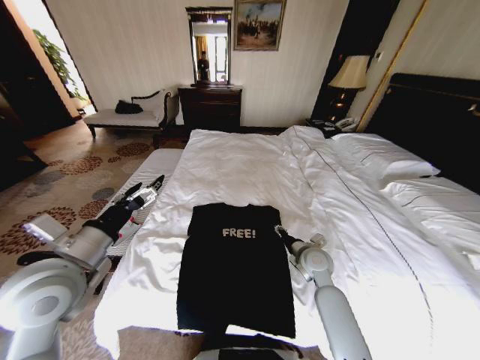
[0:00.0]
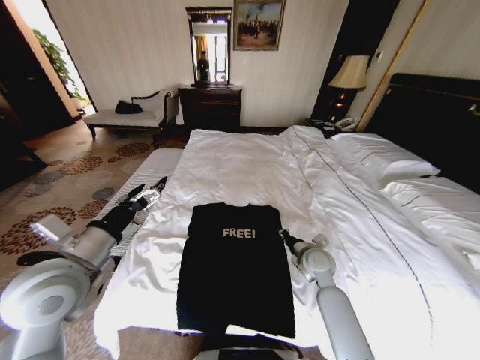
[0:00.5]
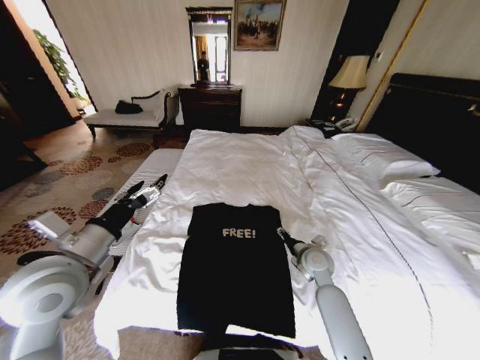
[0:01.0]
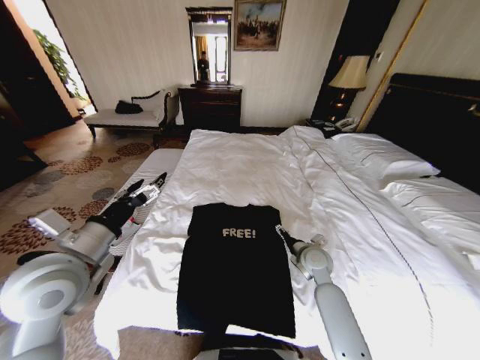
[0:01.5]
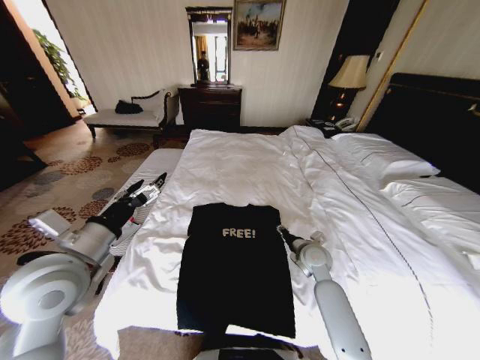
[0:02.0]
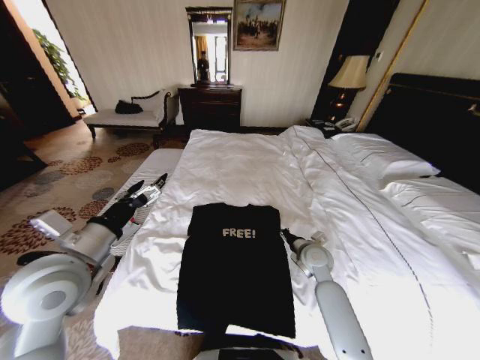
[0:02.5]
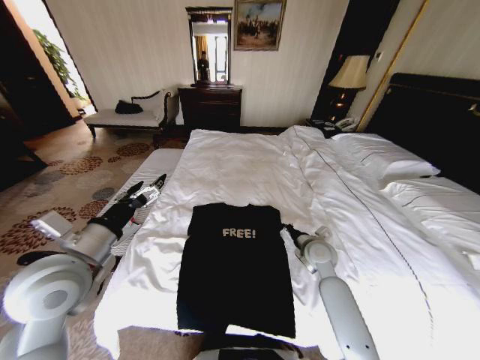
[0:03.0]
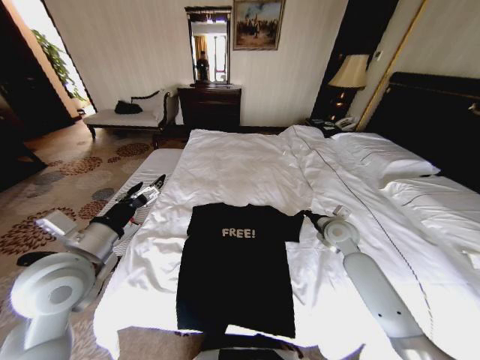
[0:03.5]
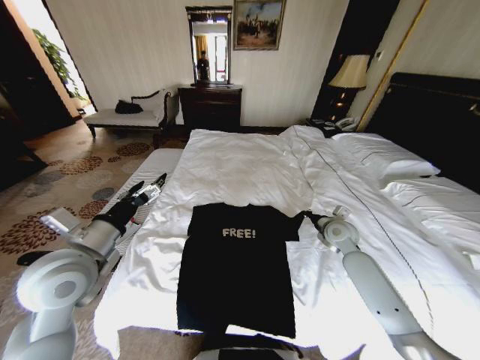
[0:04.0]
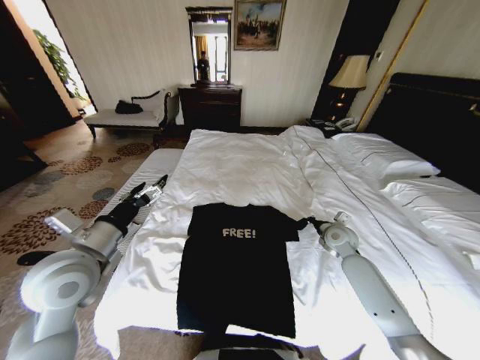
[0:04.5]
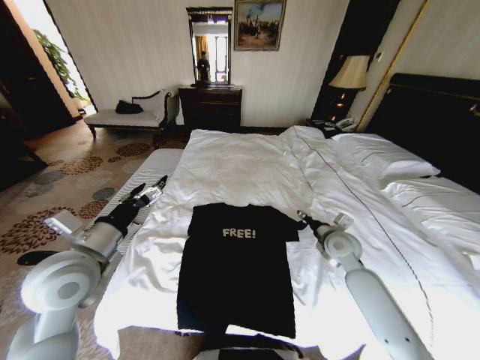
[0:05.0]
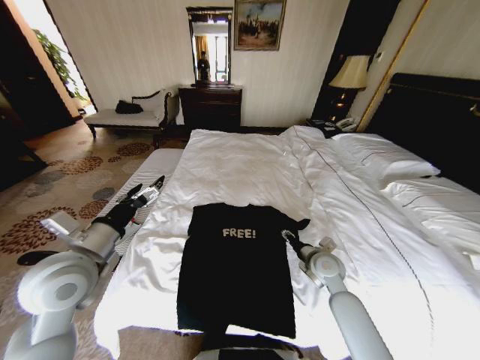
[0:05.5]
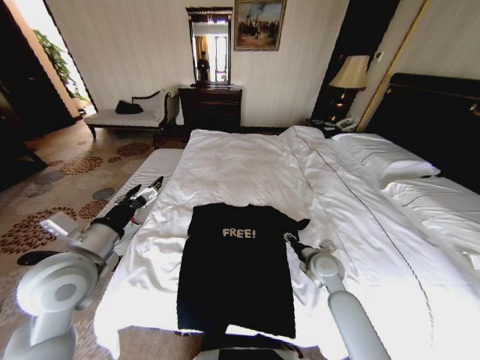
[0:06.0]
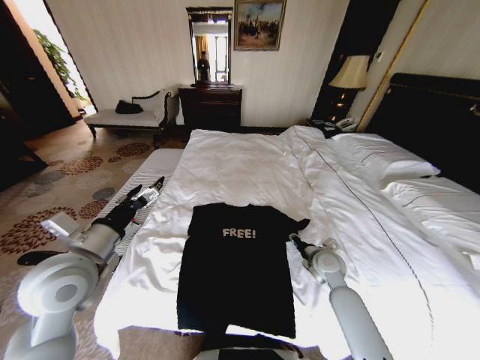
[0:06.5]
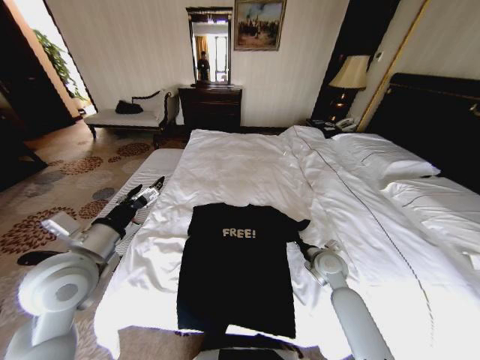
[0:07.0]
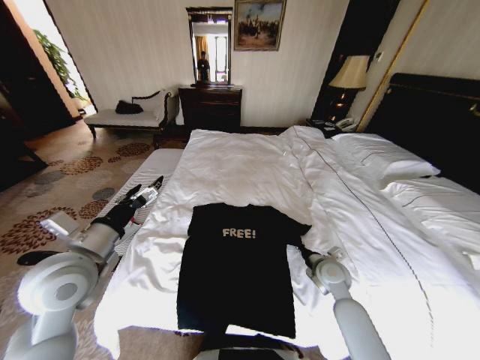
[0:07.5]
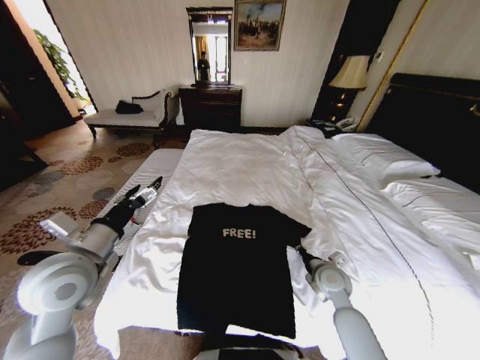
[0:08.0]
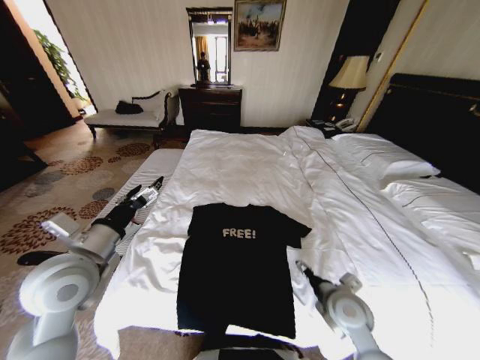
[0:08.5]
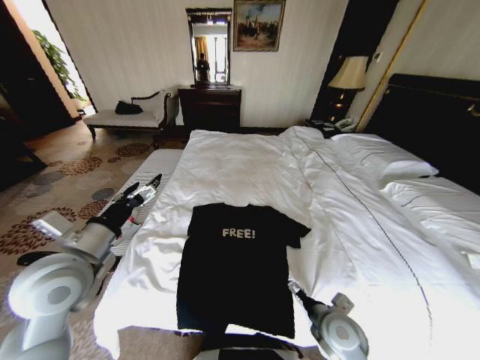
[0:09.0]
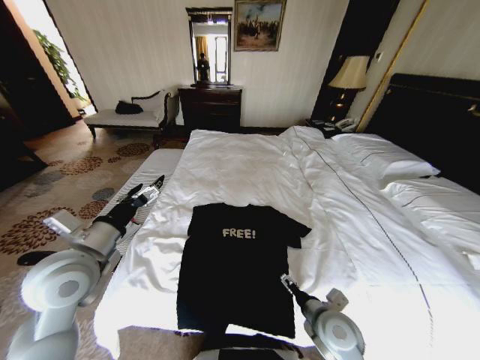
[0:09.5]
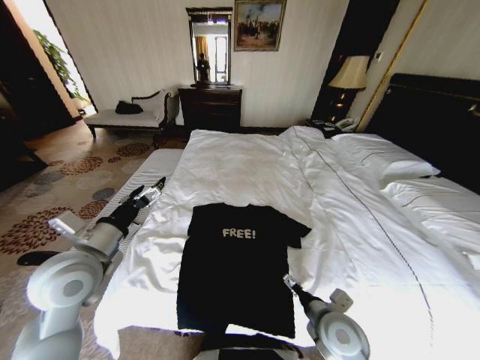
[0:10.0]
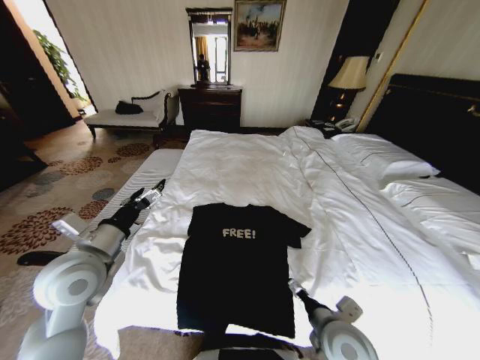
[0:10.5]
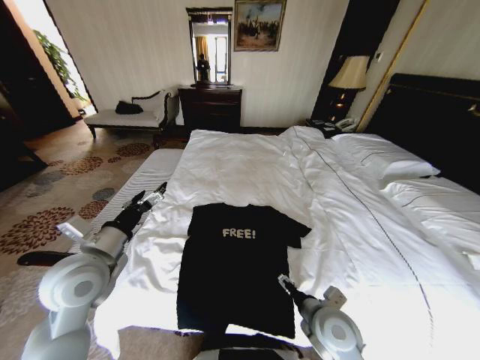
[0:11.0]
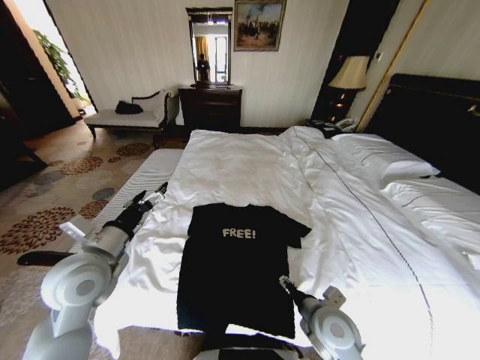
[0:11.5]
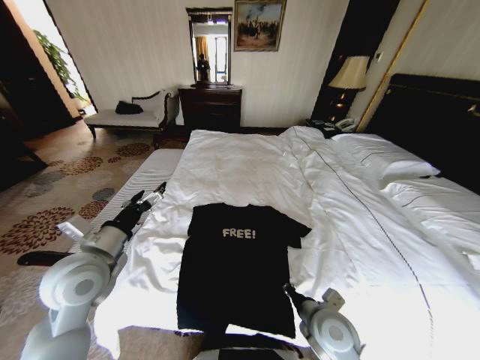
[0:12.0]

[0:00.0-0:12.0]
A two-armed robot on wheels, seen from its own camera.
Task of the whole recording: Fold the clothes on the bed.
0:00.0 to 0:02.0: The right gripper closes, then reopens.
0:02.0 to 0:04.0: The right gripper shifts about 10 cm to the right and forward, and closes its fingers.
0:04.0 to 0:06.0: The right gripper is displaced backward, to the left and downward by about 15 cm, and opens up.
0:06.0 to 0:08.0: The right gripper closes.
0:08.0 to 0:10.0: The right gripper goes approximately 15 cm backward and to the left, and opens up.
0:10.0 to 0:12.0: The right gripper closes up.

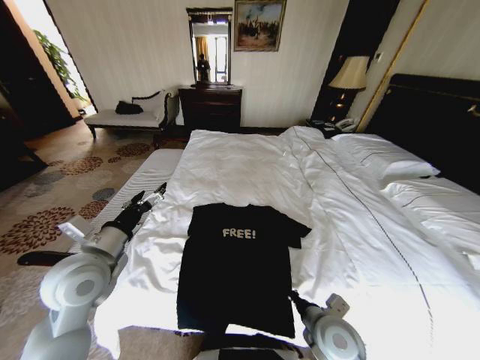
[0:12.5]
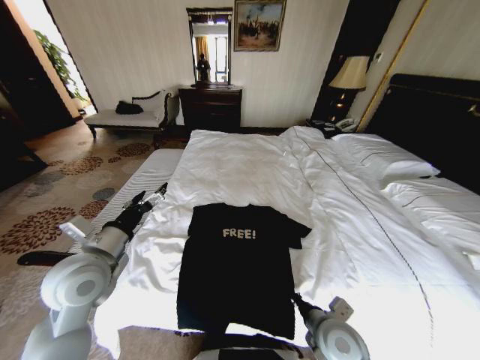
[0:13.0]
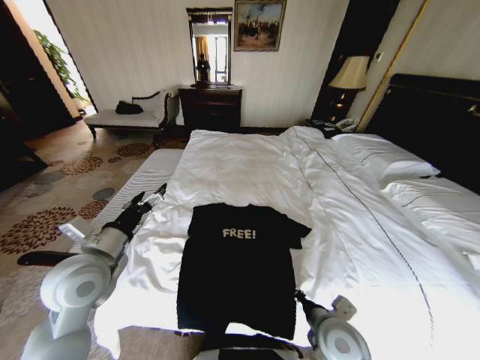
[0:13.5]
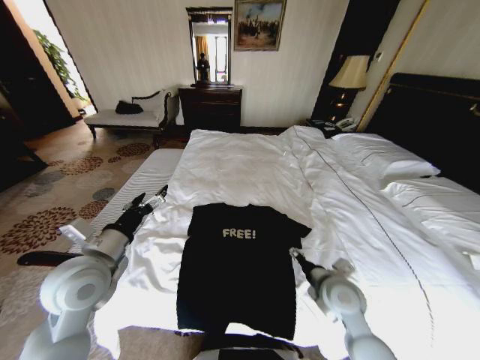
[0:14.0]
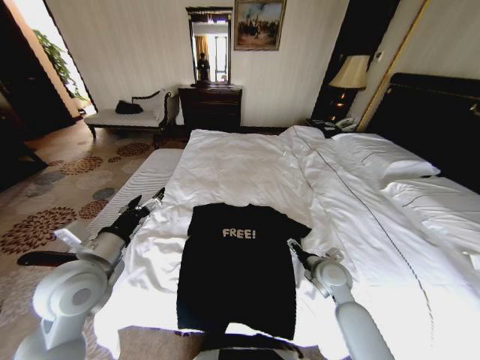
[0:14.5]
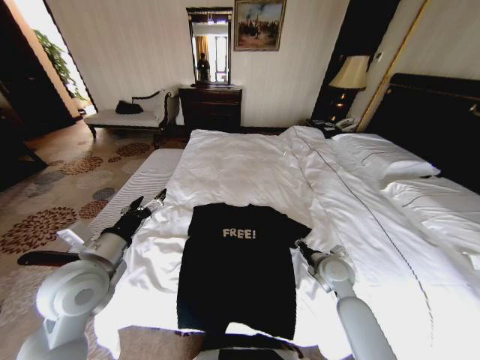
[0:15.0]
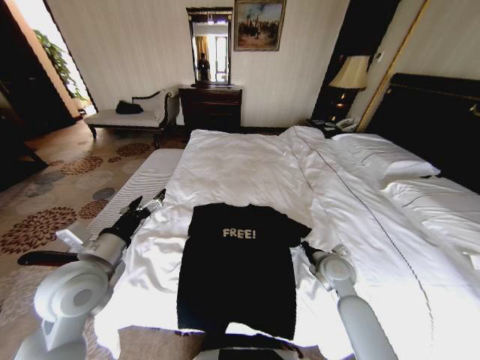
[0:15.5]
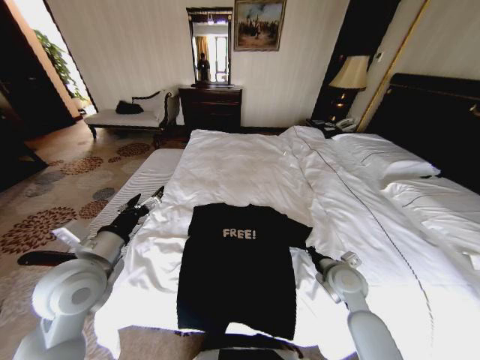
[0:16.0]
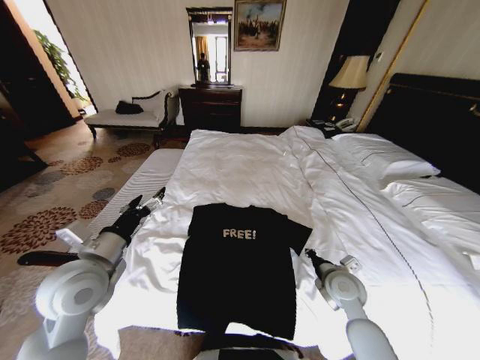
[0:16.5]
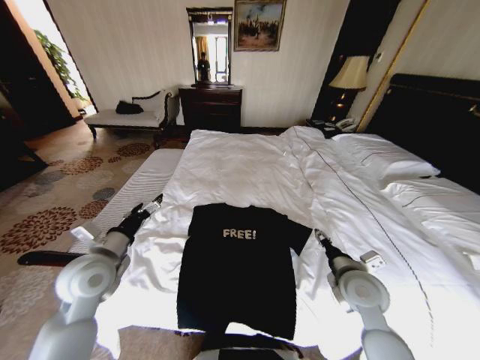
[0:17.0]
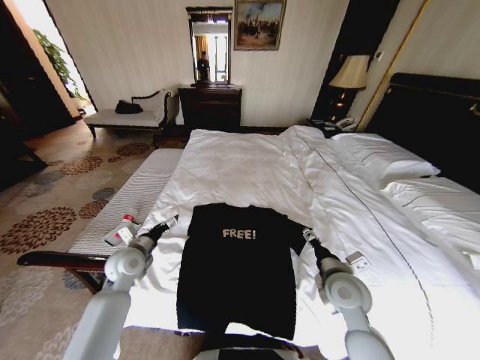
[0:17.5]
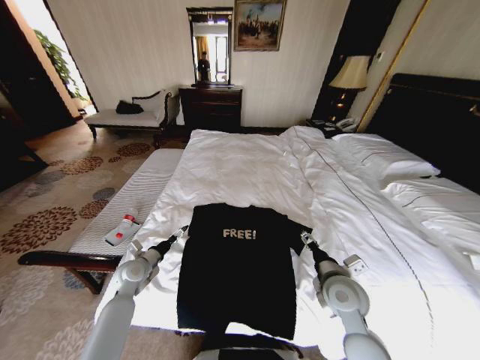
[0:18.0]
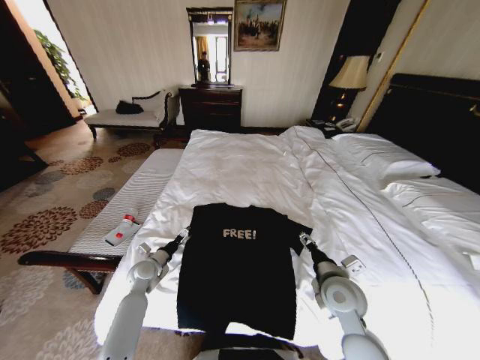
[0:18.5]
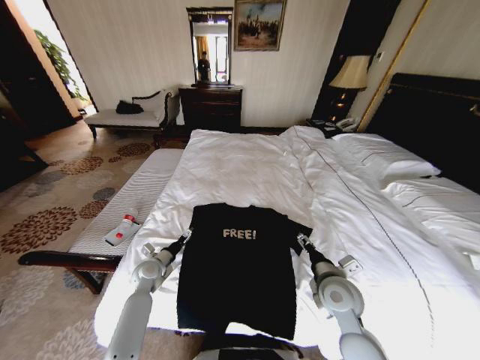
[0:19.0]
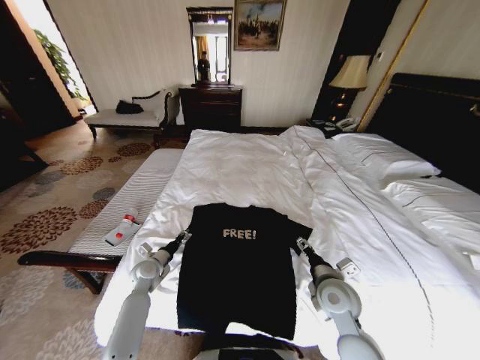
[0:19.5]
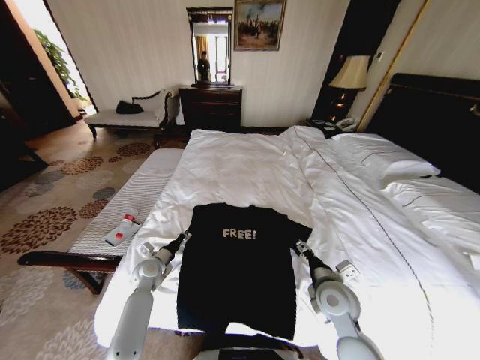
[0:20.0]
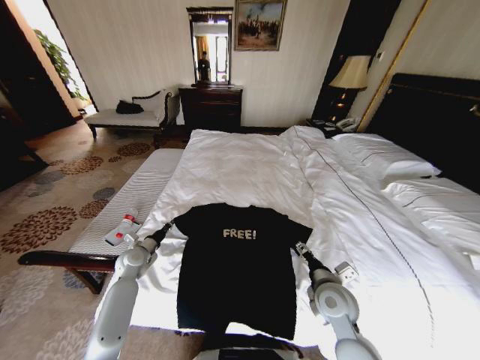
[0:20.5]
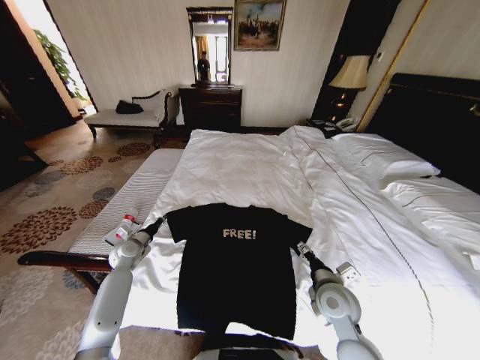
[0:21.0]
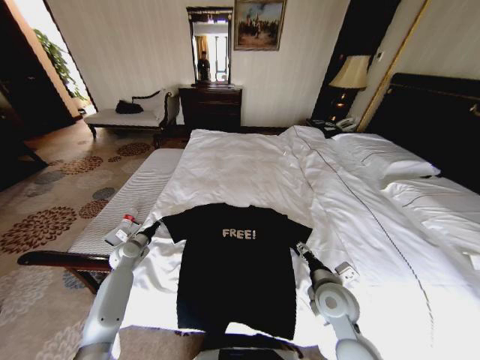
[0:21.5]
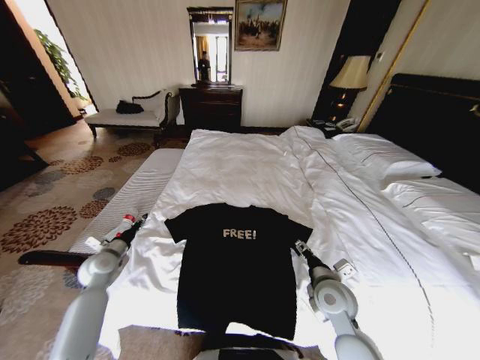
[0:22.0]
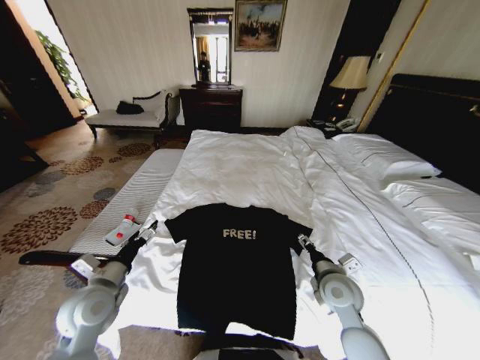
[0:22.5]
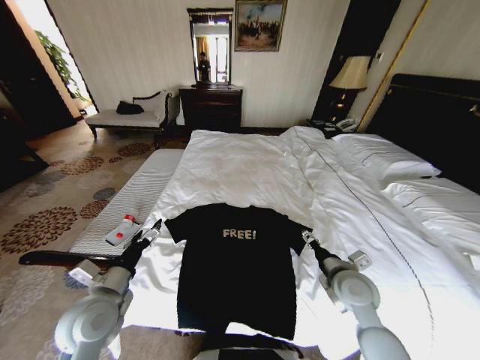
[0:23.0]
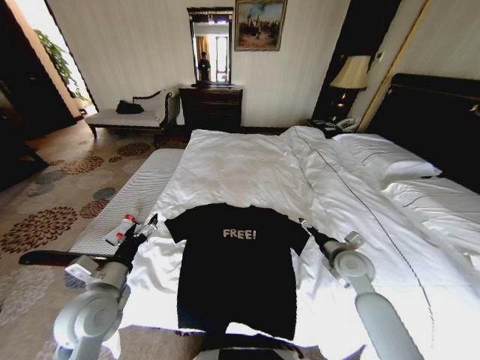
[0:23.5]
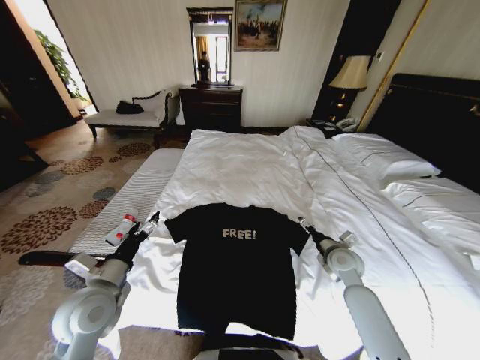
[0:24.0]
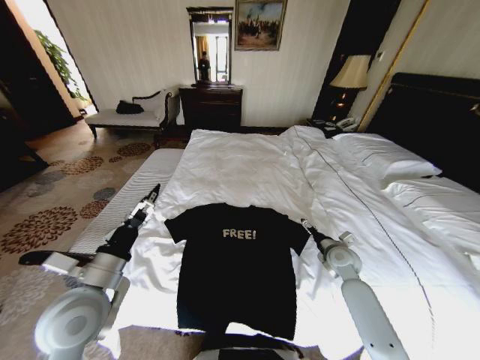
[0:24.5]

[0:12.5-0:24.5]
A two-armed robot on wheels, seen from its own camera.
Task of the whole recording: Fold the clothes on the bed.
0:12.5 to 0:14.5: The right gripper heads forward and to the right, covering about 15 cm, and opens its fingers.
0:14.5 to 0:16.5: The right gripper closes its fingers.
0:16.5 to 0:18.5: The left gripper moves downward and forward, approximately 25 cm. Meanwhile the right gripper changes place by about 5 cm, and opens its fingers.
0:18.5 to 0:20.5: The left gripper ends up some 5 cm from where it was, and closes up.
0:20.5 to 0:22.5: The left gripper moves backward and upward, approximately 20 cm, and opens.
0:22.5 to 0:24.5: The right gripper moves forward and to the right, about 15 cm. The left gripper travels upward by roughly 5 cm.

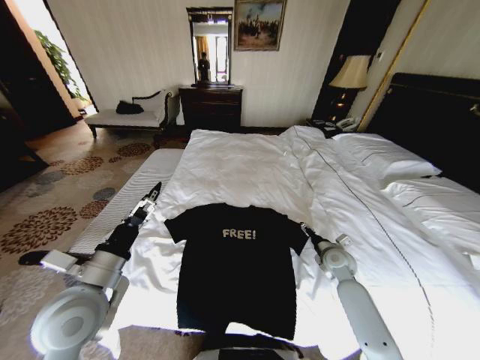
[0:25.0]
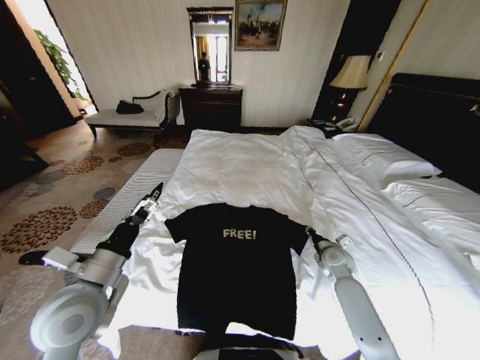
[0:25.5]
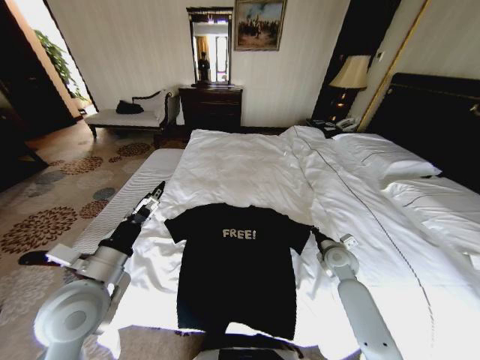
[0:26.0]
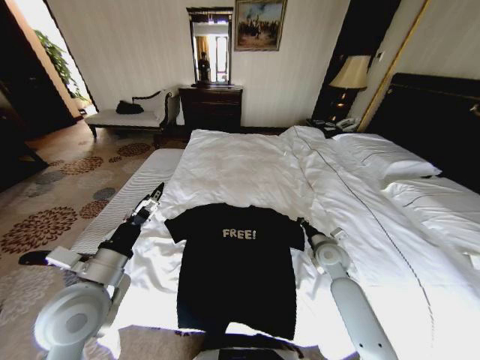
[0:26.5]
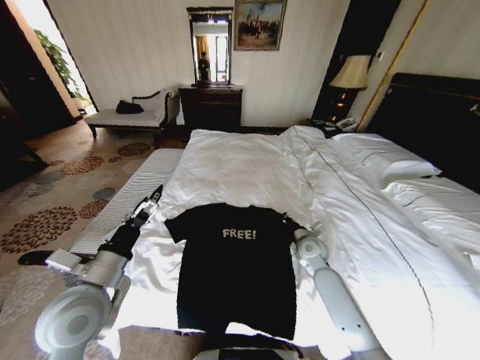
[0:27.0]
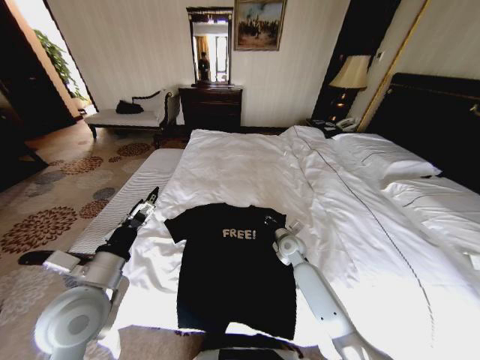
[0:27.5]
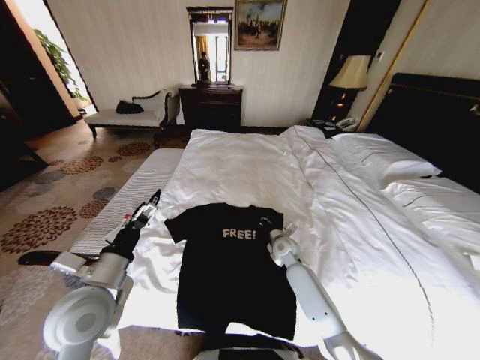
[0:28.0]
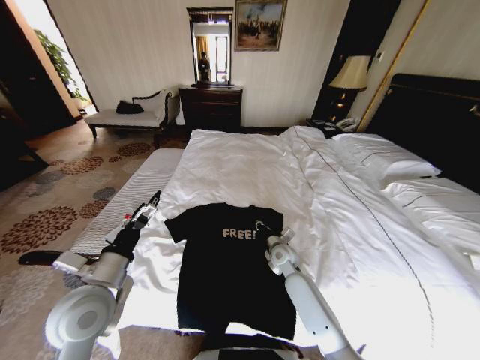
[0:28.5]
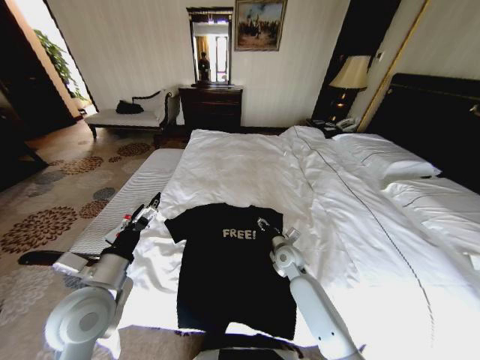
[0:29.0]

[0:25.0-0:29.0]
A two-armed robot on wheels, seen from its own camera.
Task of the whole recording: Fold the clothes on the bed.
0:25.0 to 0:27.0: The right gripper shifts about 10 cm to the left, and closes.
0:27.0 to 0:29.0: The right gripper heads to the left, covering some 10 cm, and opens up.
